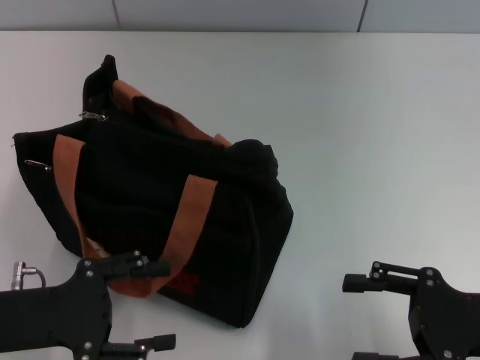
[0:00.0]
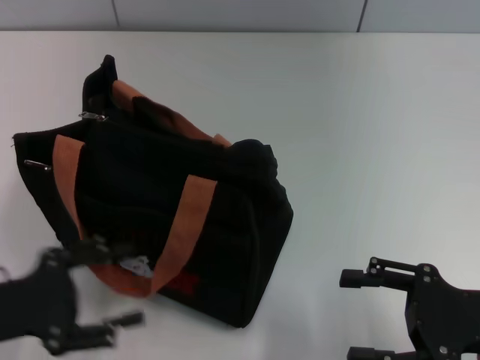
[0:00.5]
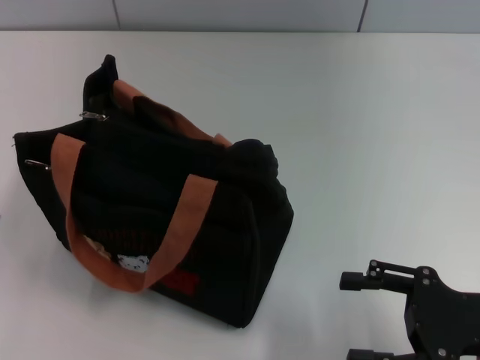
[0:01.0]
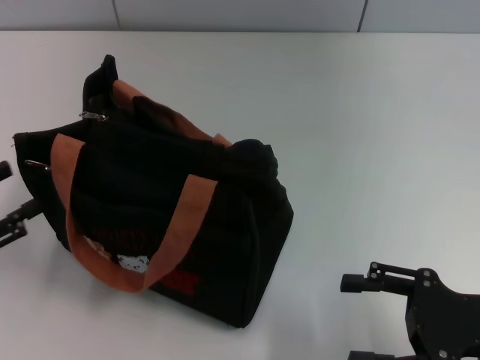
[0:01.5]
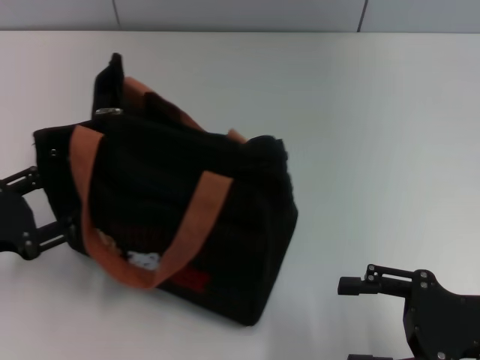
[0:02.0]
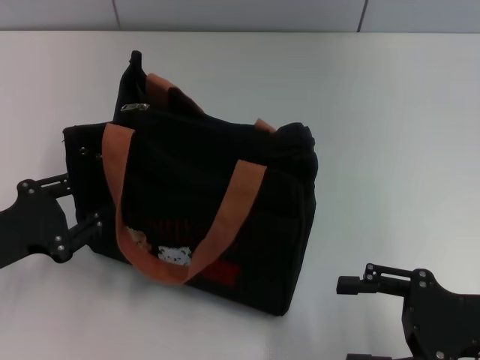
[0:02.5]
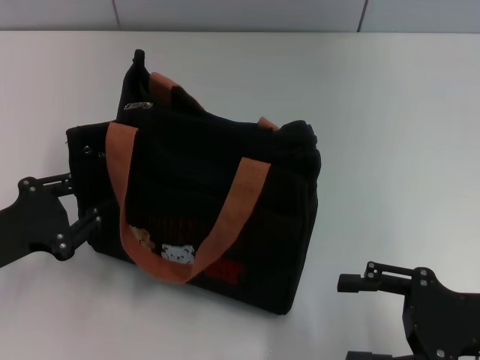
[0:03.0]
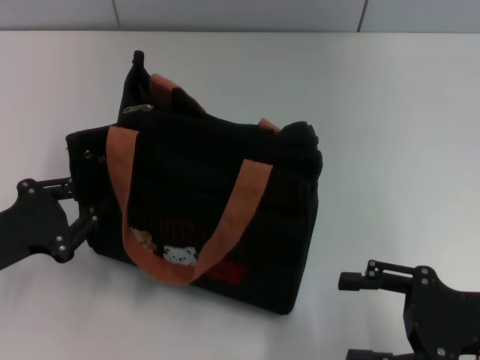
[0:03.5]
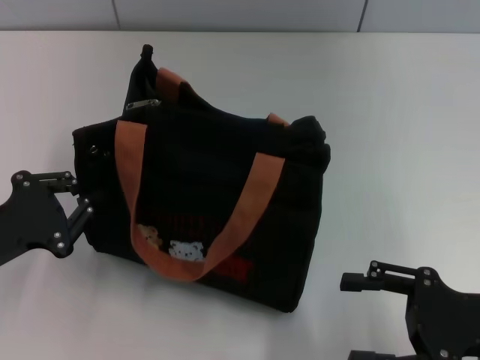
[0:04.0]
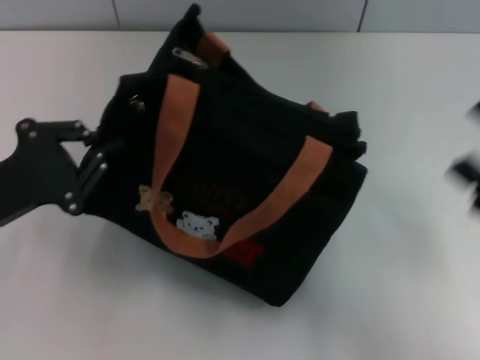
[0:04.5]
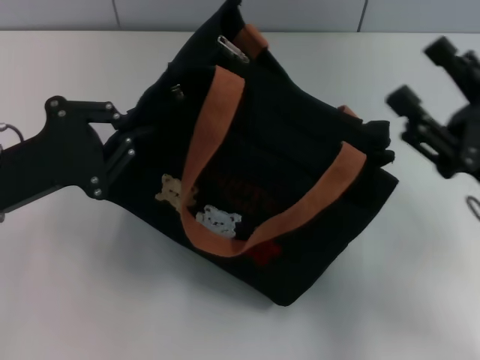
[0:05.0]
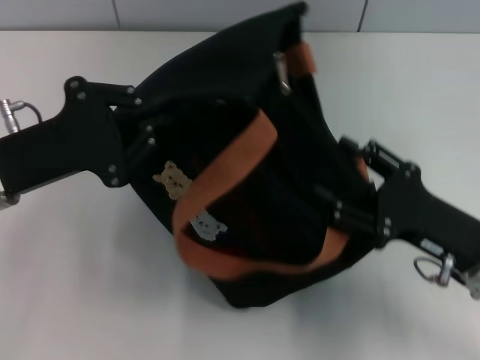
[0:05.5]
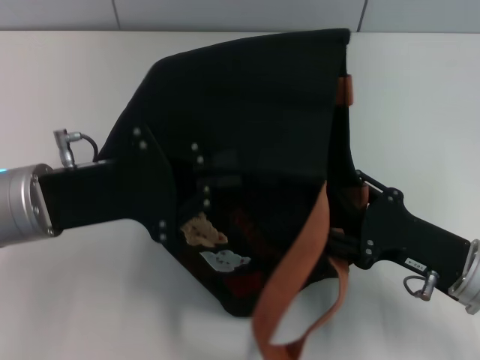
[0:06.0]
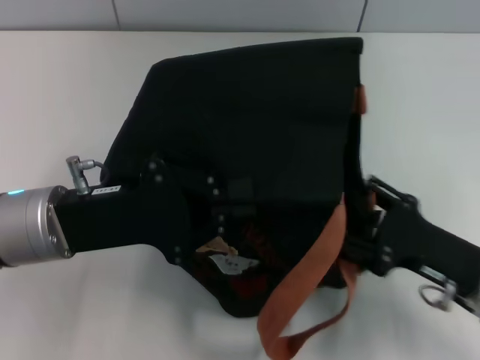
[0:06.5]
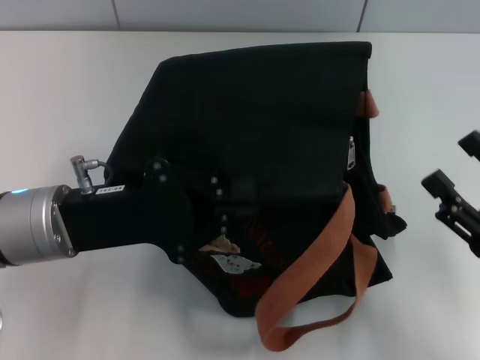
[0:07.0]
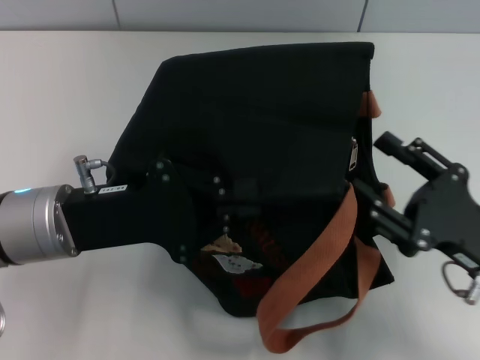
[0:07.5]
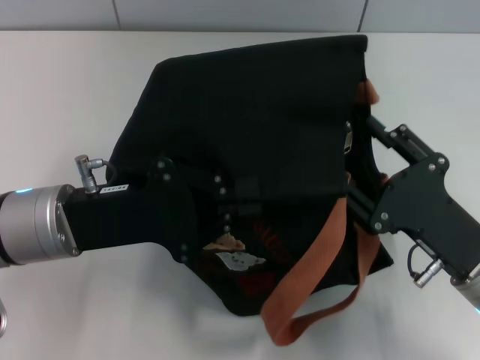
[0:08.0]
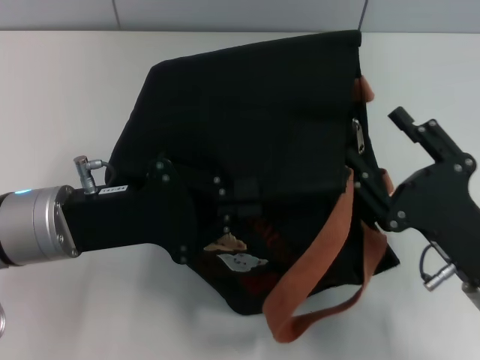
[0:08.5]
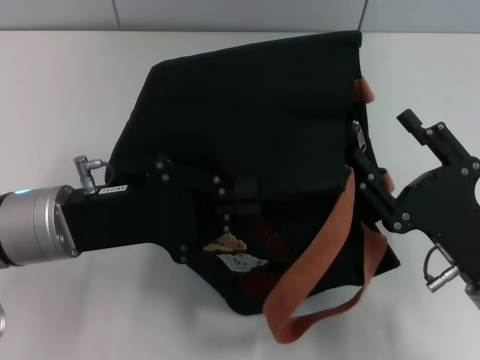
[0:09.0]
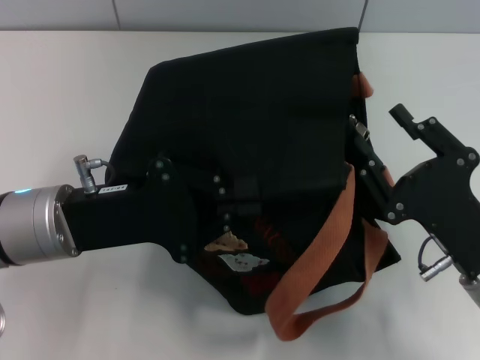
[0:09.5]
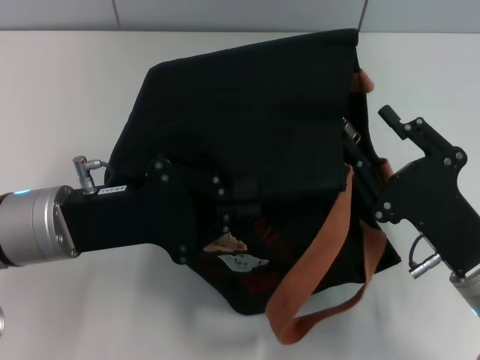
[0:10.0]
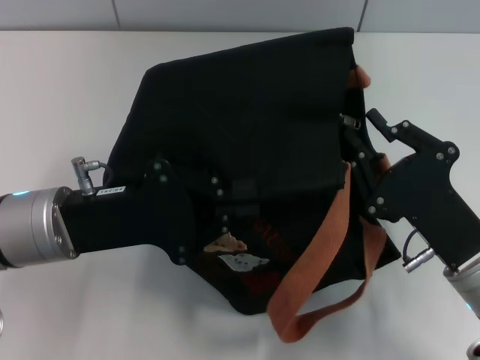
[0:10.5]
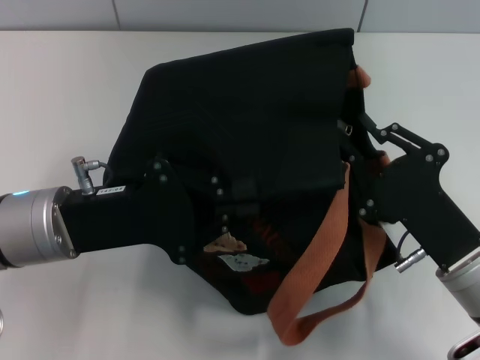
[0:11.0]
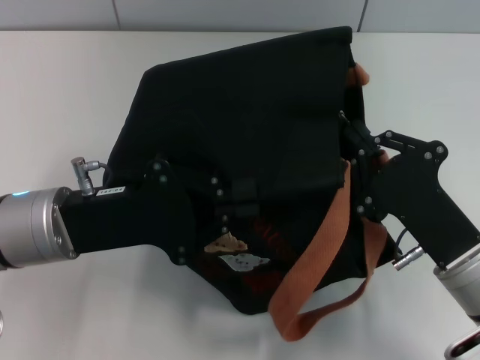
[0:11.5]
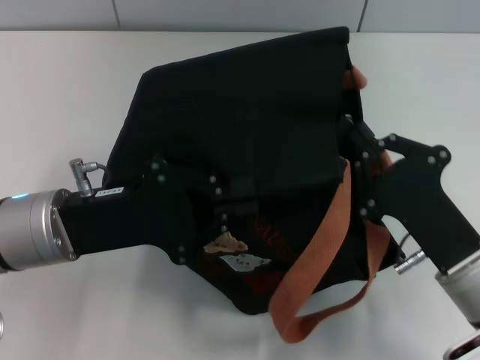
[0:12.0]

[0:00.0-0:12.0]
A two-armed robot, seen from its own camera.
0:00.0 to 0:02.0: The left gripper goes about 5 cm to the left.
0:02.0 to 0:04.0: The left gripper closes.
0:04.0 to 0:06.0: The left gripper shifts some 10 cm to the right, upward and forward. The right gripper ends up about 5 cm from where it was.
0:08.0 to 0:10.0: There are only small adjustments of the grippers.
0:10.0 to 0:12.0: The right gripper closes up.

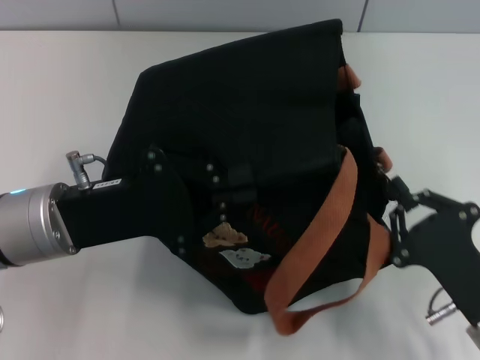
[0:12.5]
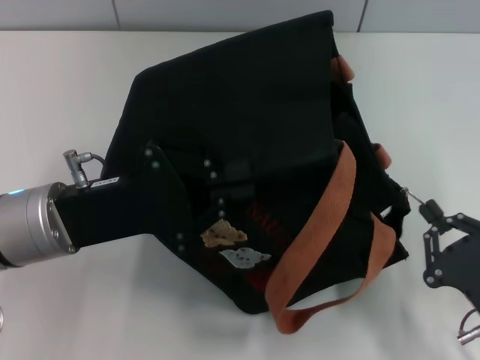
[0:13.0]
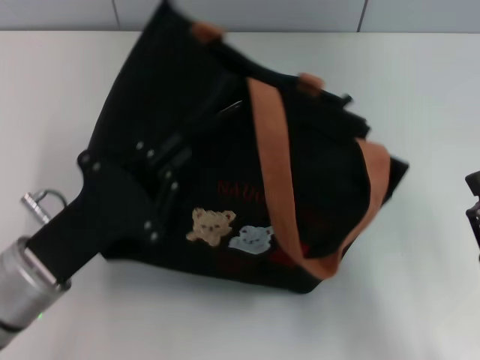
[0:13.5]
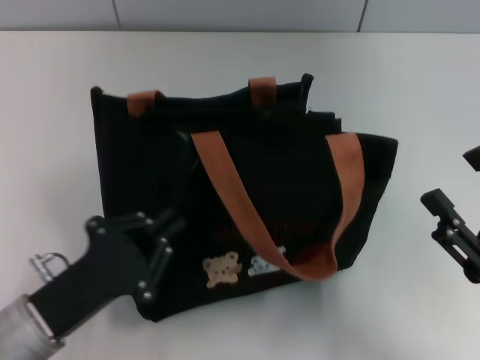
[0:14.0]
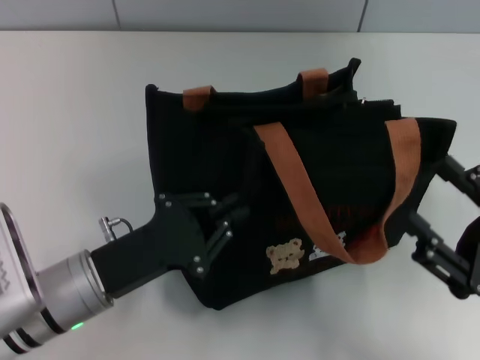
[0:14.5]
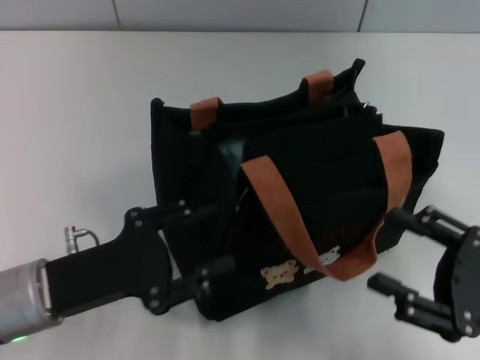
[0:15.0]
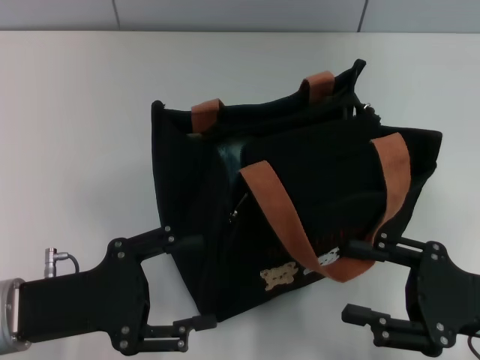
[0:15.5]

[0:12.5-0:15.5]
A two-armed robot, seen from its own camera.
Step, 0:13.5 to 0:15.0: Grab the bag with your left hand.
0:12.5 to 0:14.0: The right gripper changes place by roughly 5 cm, and opens its fingers. Meanwhile the left gripper travels backward and downward by roughly 10 cm.
0:14.0 to 0:15.5: The left gripper ends up roughly 5 cm from where it was, and opens up.

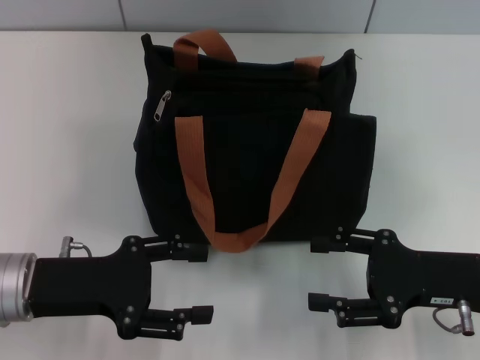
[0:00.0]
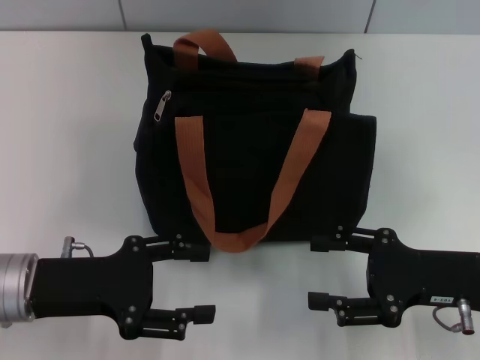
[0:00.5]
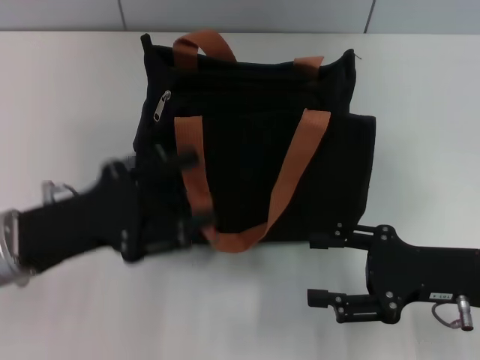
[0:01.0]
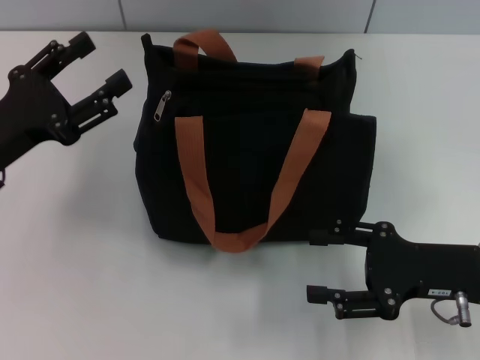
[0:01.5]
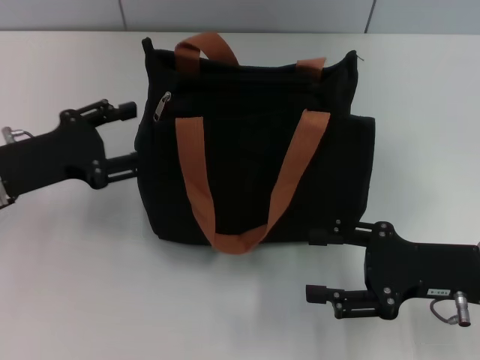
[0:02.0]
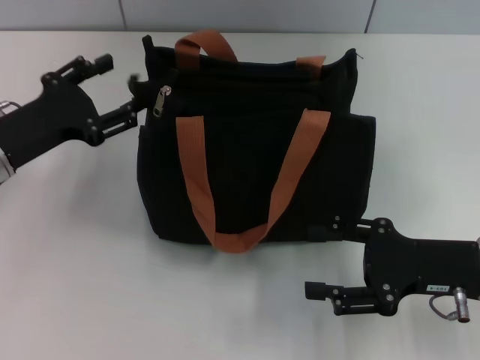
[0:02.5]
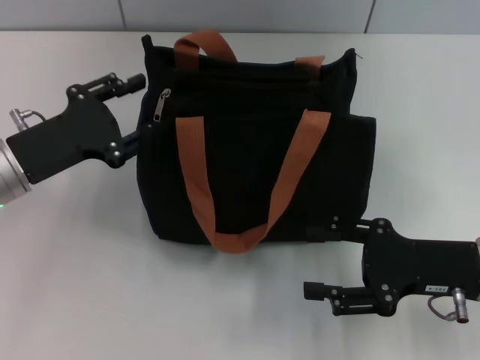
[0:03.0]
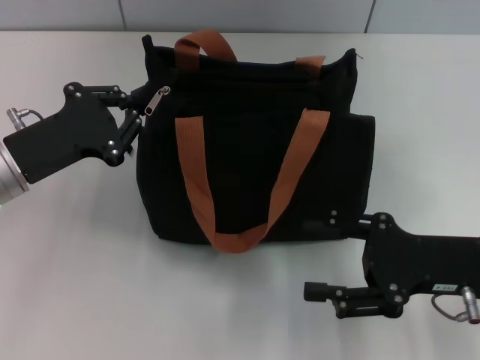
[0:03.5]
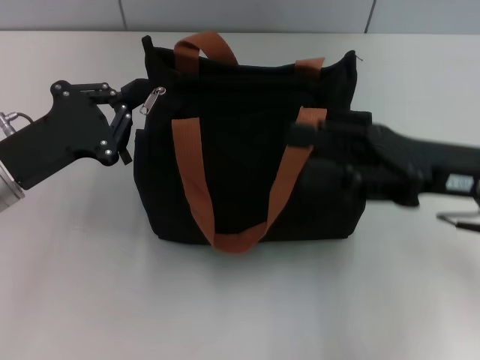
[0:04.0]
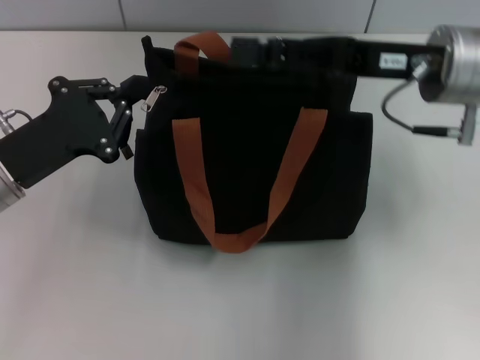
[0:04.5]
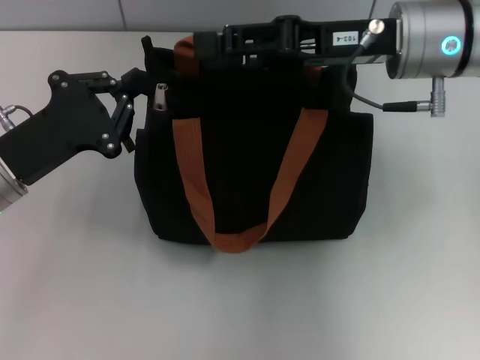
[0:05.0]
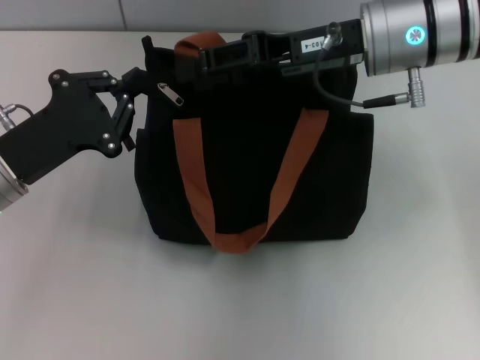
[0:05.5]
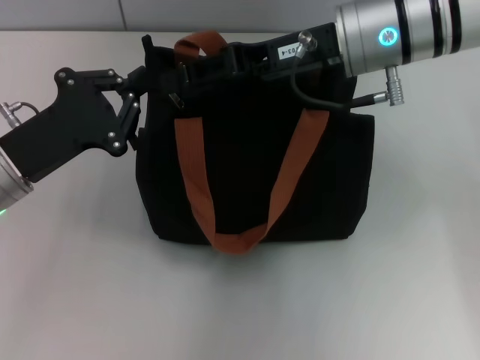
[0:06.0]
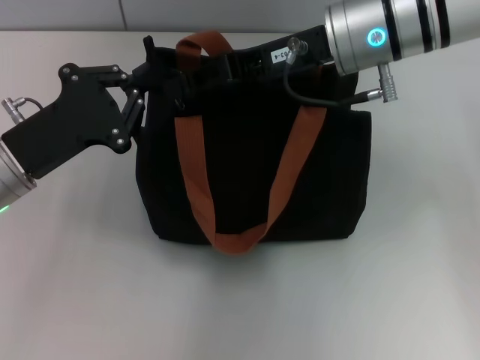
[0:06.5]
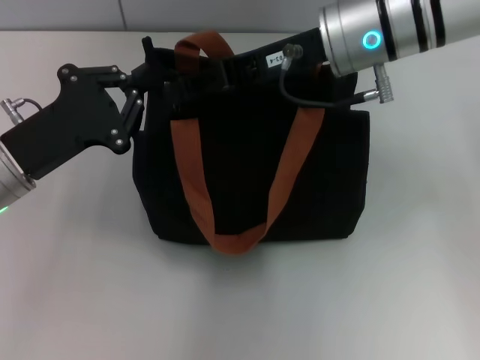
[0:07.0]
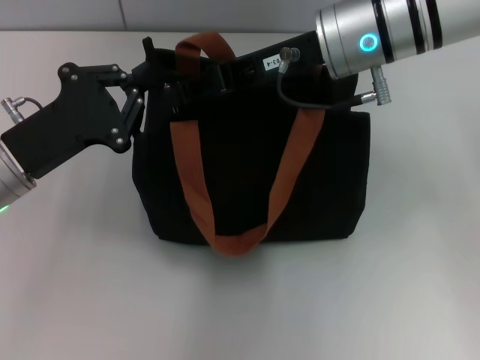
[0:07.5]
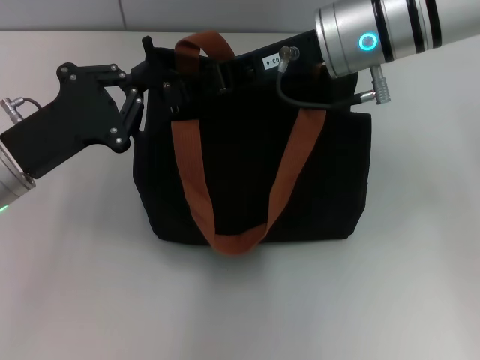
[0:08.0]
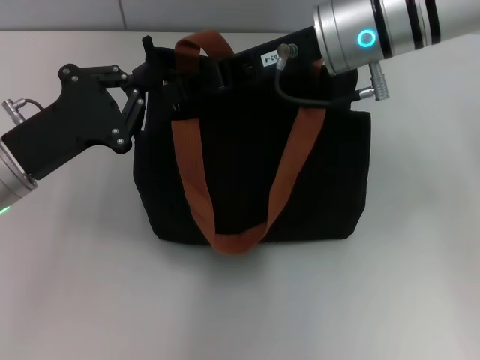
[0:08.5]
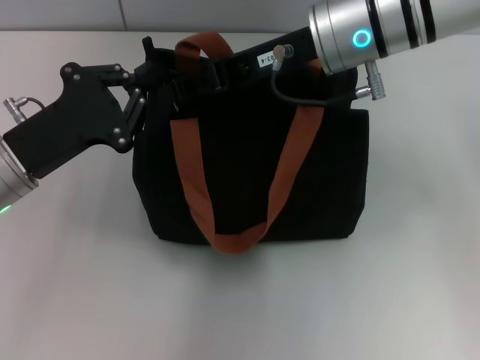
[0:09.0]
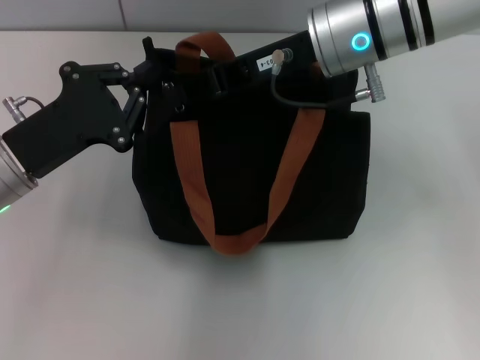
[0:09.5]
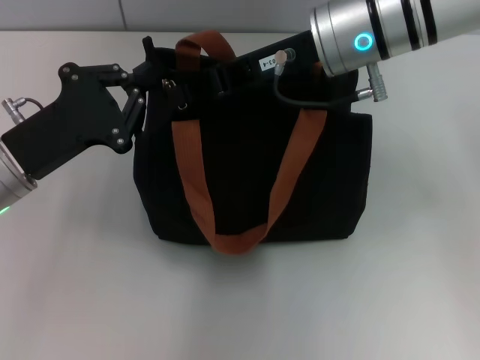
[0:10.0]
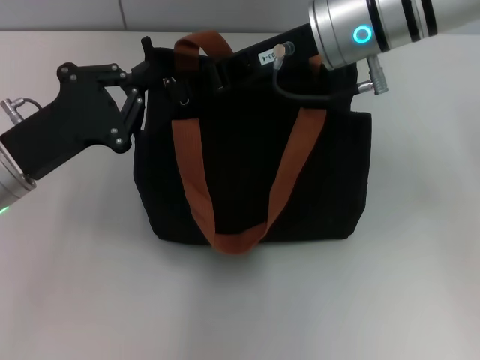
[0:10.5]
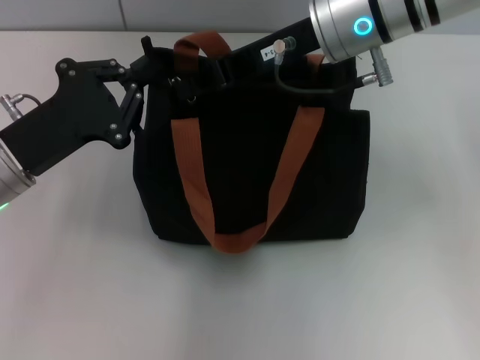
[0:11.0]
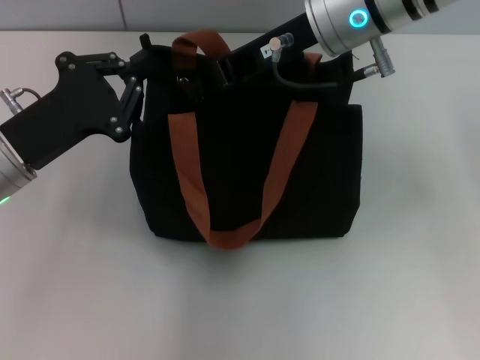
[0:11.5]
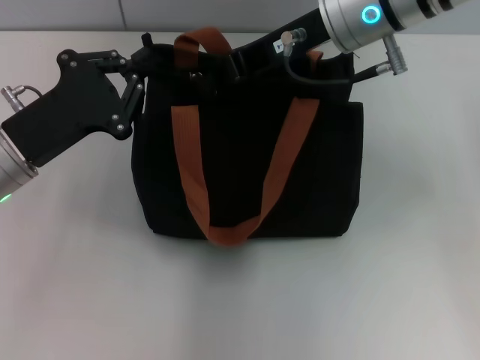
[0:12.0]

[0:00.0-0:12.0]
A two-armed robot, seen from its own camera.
0:00.0 to 0:02.0: The left gripper goes about 5 cm forward.
0:02.0 to 0:04.0: The right gripper goes some 5 cm upward, while the left gripper closes its fingers.
0:04.0 to 0:06.0: The right gripper is displaced to the left, forward and upward by roughly 15 cm.
0:06.0 to 0:08.0: The right gripper closes its fingers.
0:08.0 to 0:10.0: Both grippers stay put.
0:10.0 to 0:12.0: The grippers move only a little.
